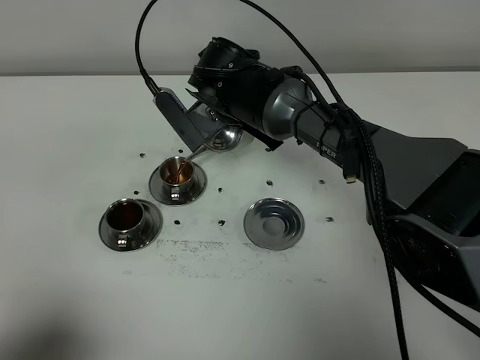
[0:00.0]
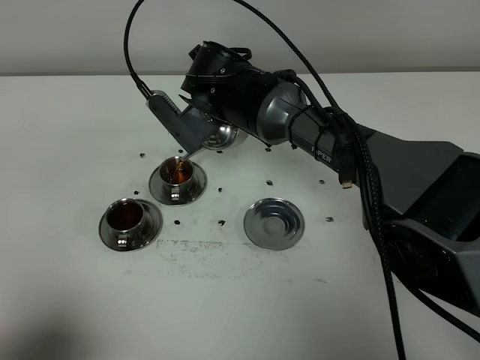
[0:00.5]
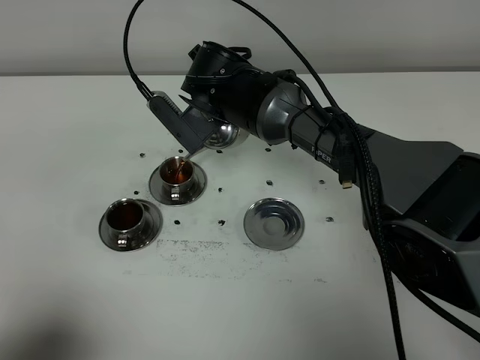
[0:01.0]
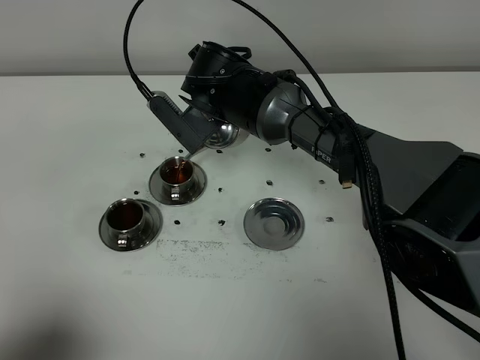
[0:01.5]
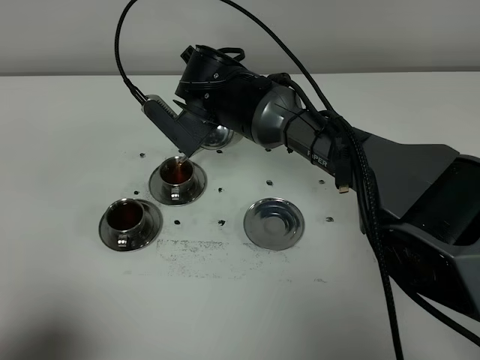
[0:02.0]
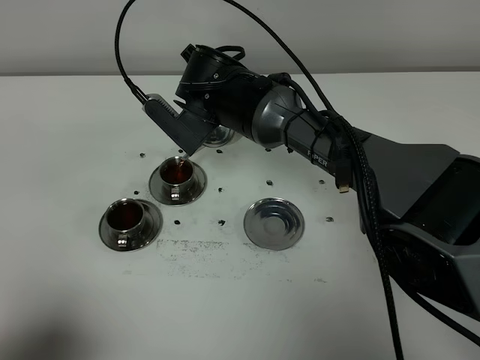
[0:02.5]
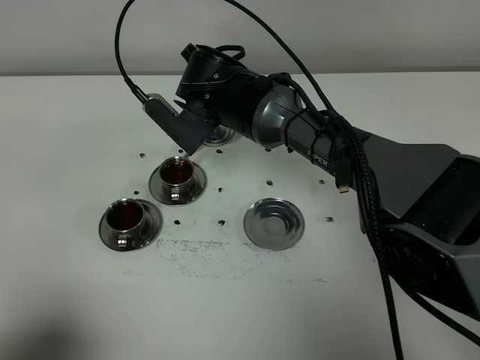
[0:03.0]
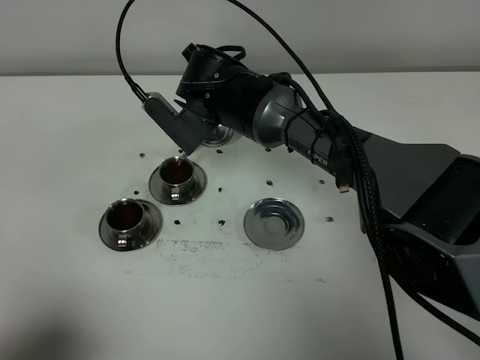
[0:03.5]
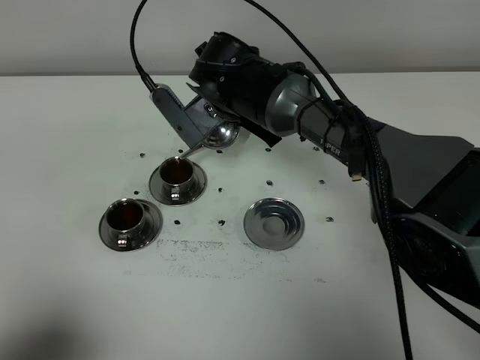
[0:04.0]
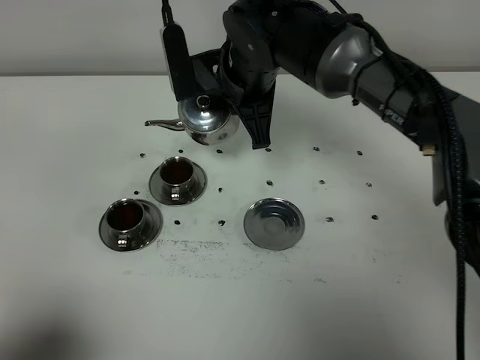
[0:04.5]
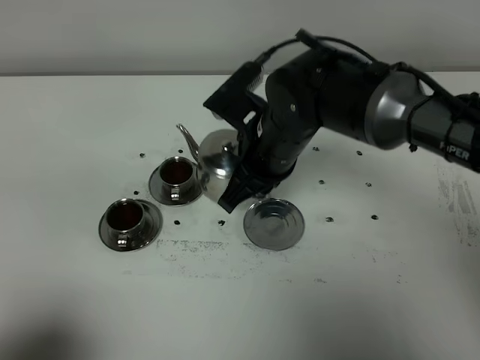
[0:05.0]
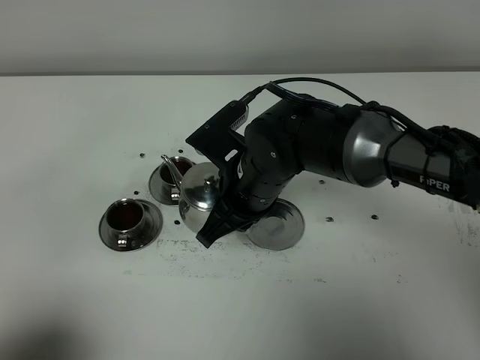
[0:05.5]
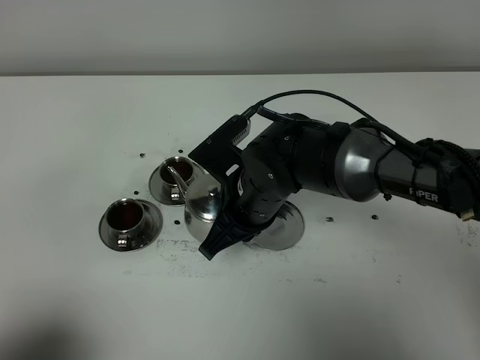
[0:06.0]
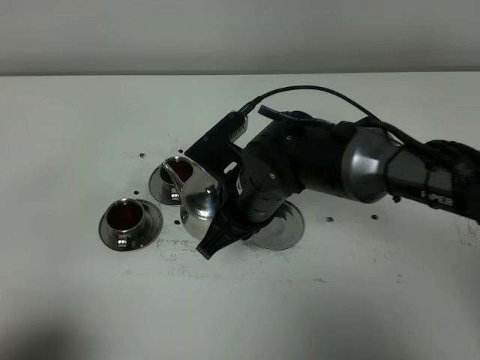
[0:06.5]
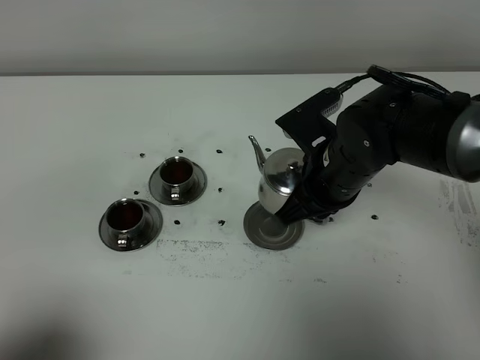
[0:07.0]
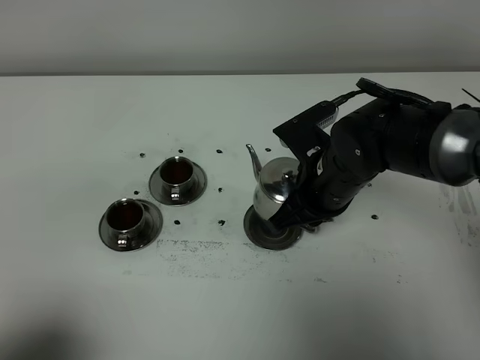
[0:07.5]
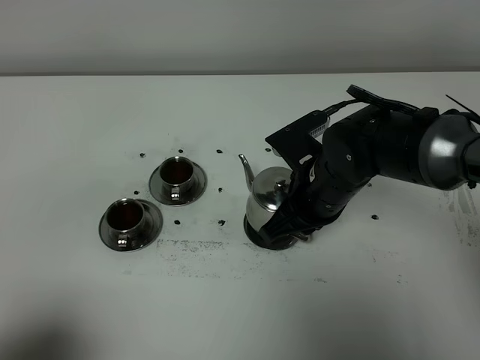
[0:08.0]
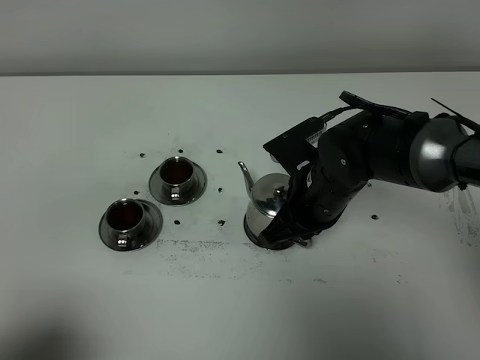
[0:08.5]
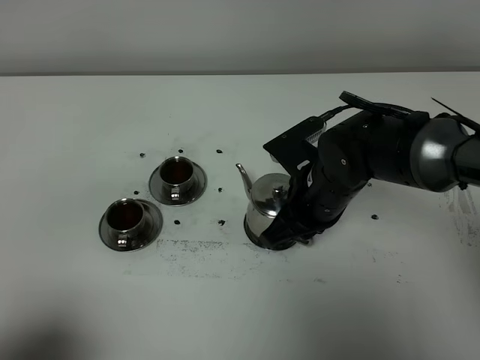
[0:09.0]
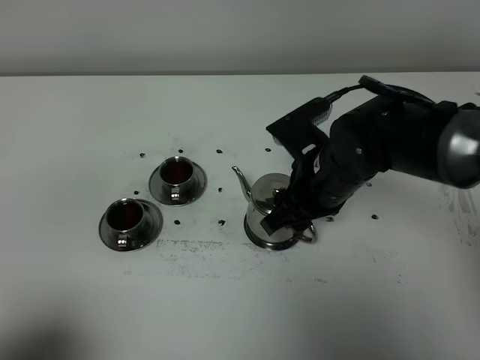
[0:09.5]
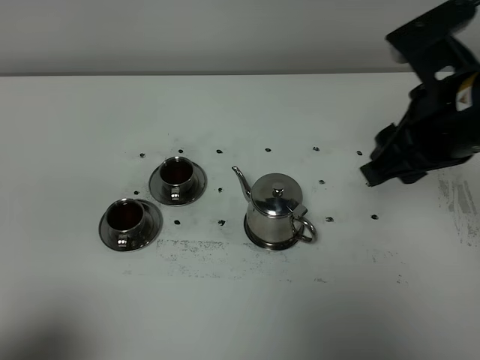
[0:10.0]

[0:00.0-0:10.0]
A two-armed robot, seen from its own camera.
Task of the whole recording: grasp the stainless steel teapot and pour the tea into the two stainless steel teacups one by one, put the stainless steel teapot back in its original place.
Step, 0:00.0 to 0:04.0: Pour tea into the teacup with the right gripper.
0:00.0 to 0:04.0: The grippers stay close to where they were, moving slightly.
0:04.0 to 0:06.0: The right gripper shifts about 10 cm backward.
0:06.0 to 0:08.0: The right gripper travels to the right by some 10 cm.
0:08.0 to 0:10.0: The right gripper is displaced upward and to the right by about 20 cm, and opens.

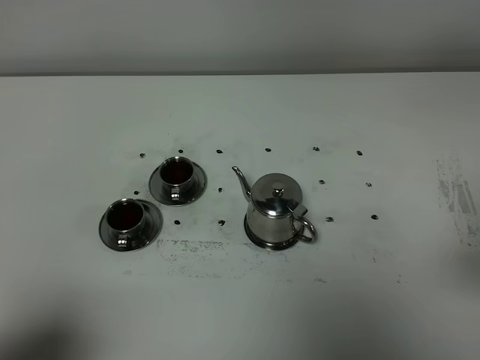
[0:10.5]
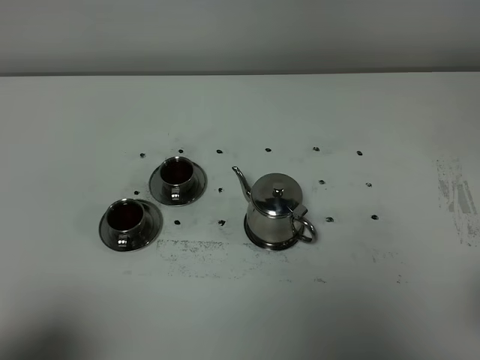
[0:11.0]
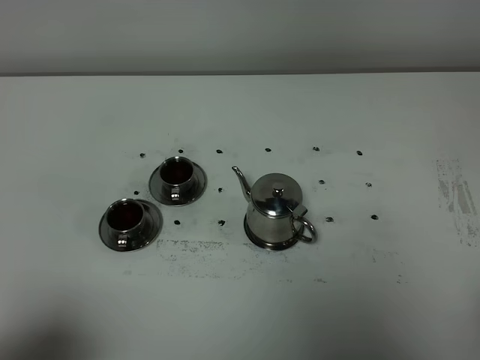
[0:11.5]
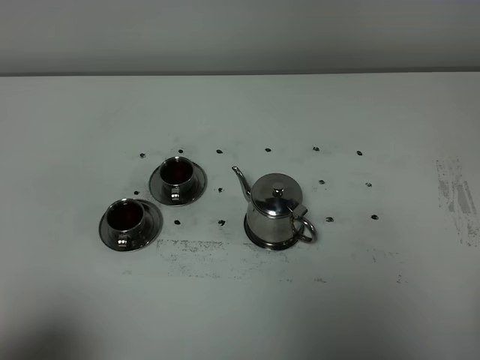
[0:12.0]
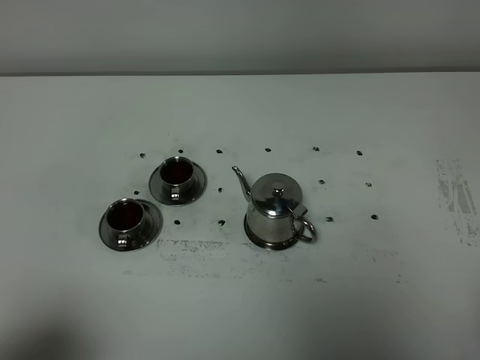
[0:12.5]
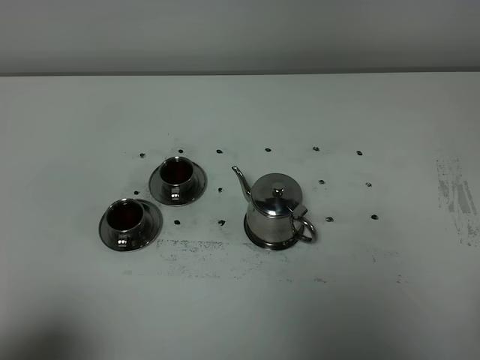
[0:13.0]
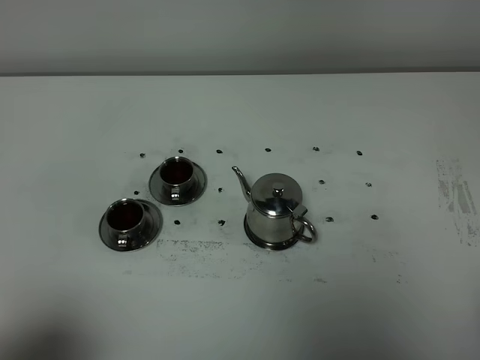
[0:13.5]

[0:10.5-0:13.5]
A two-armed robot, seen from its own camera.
Task of the whole recording: grasp the stainless steel teapot and pour the tea into the two stainless steel teacups one by one, put the stainless steel teapot back in its original place.
0:12.0 to 0:13.5: Both grippers stay put.
